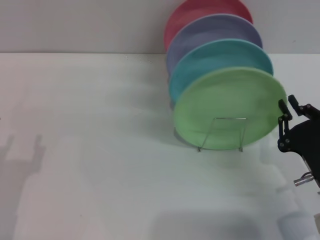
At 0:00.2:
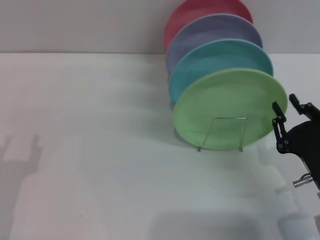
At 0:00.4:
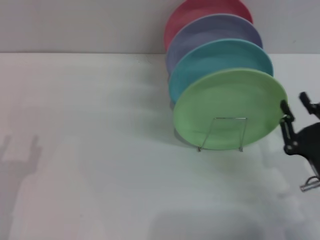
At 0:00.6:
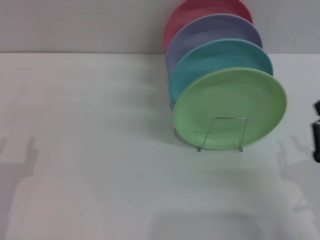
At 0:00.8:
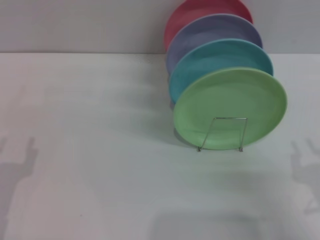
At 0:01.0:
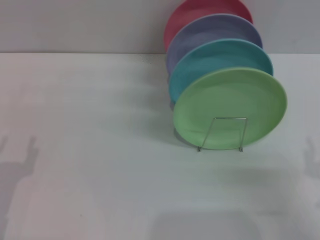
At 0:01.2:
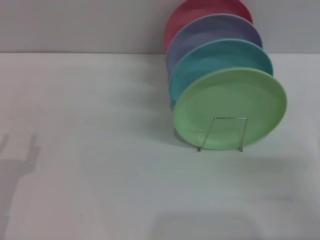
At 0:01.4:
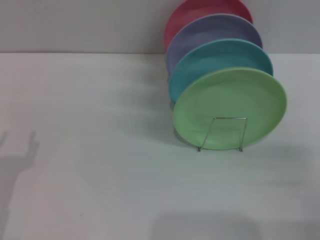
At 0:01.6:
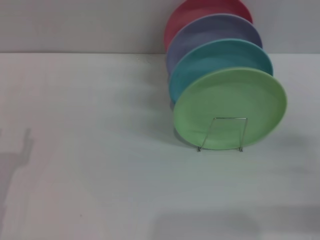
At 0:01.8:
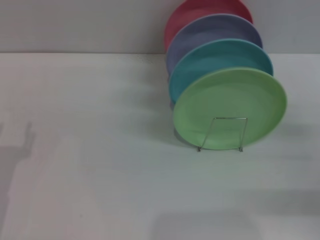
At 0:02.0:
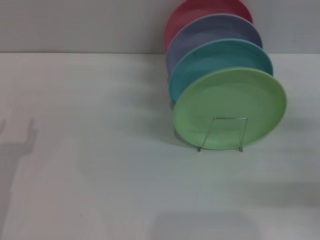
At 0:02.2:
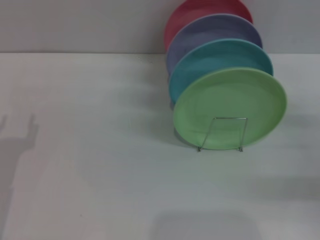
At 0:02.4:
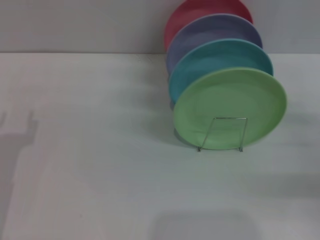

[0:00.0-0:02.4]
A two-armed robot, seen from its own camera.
Task of the whole recording: Grip the plate with one hand, pass it to the other, then set it on the shelf.
0:00.0 to 0:01.2: The right gripper travels to the right by approximately 5 cm, and opens.
0:01.2 to 0:02.4: The left gripper shifts roughly 5 cm forward. Meanwhile the right gripper travels forward and to the right by roughly 10 cm.
